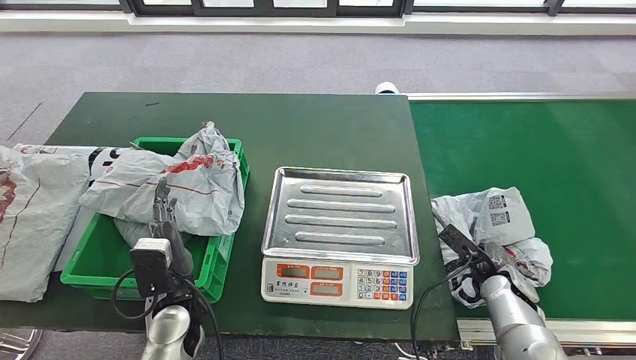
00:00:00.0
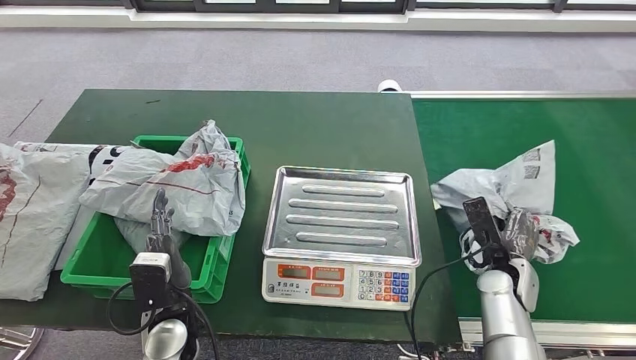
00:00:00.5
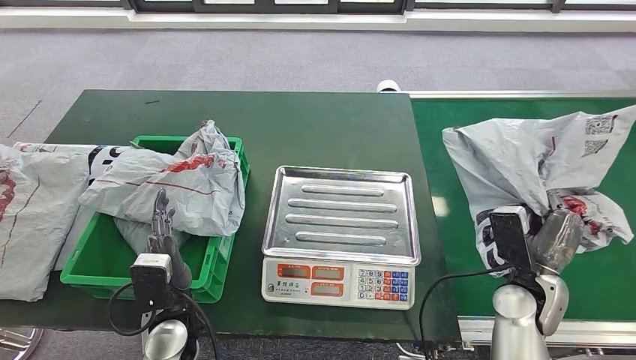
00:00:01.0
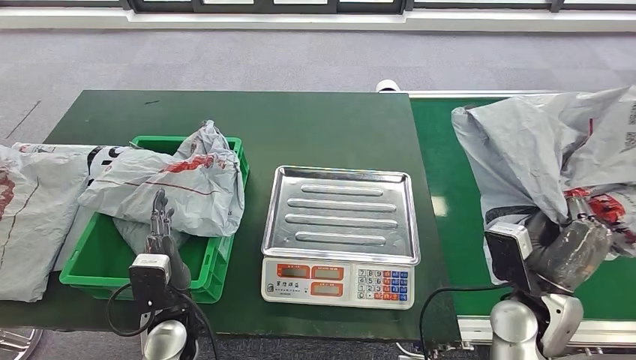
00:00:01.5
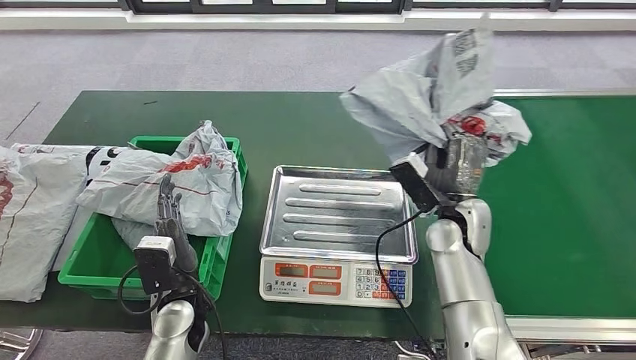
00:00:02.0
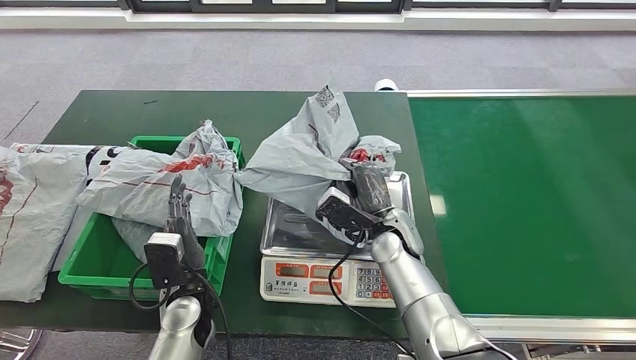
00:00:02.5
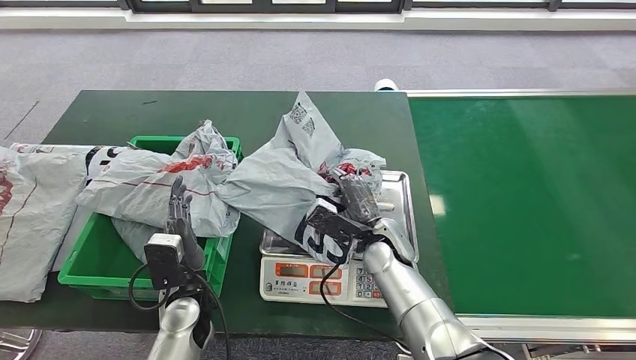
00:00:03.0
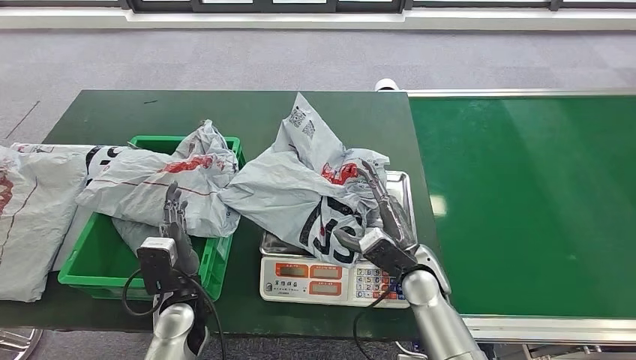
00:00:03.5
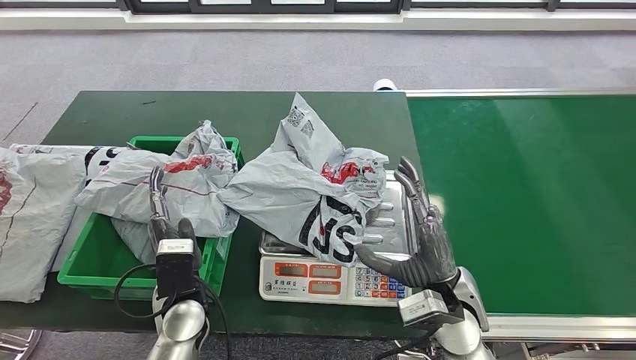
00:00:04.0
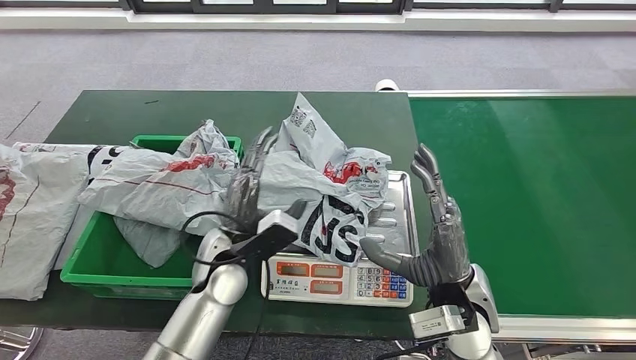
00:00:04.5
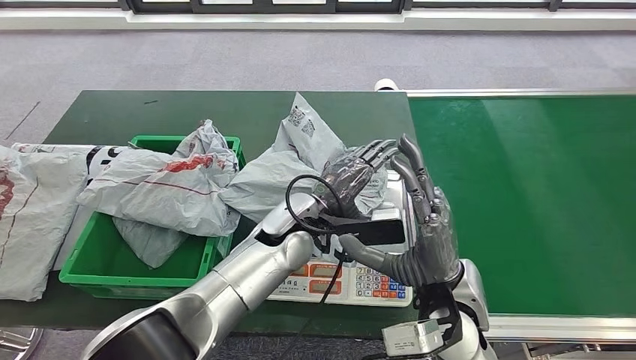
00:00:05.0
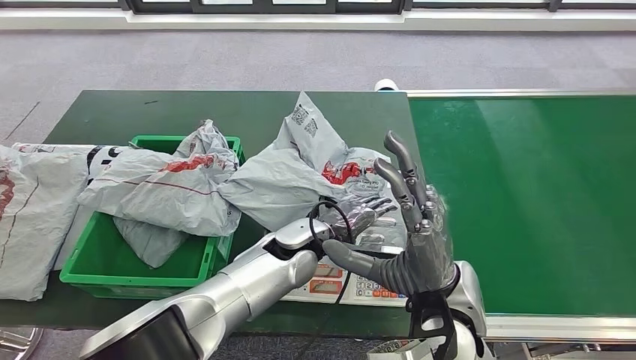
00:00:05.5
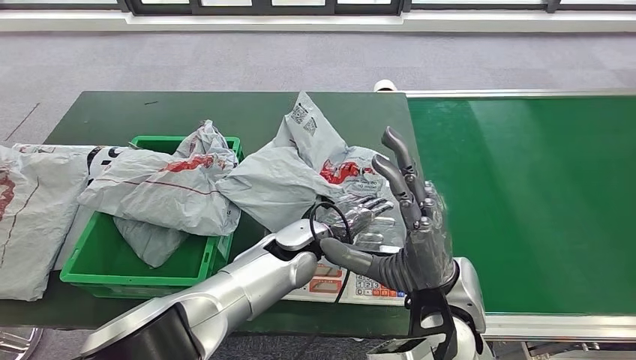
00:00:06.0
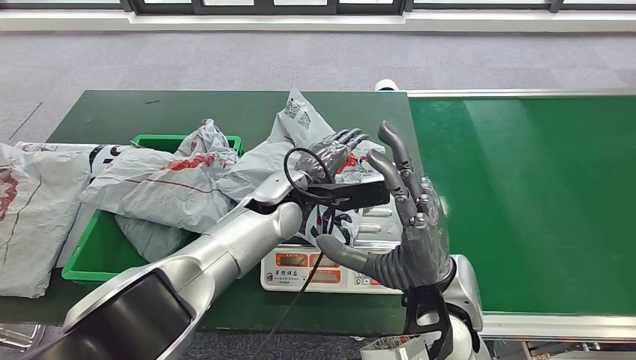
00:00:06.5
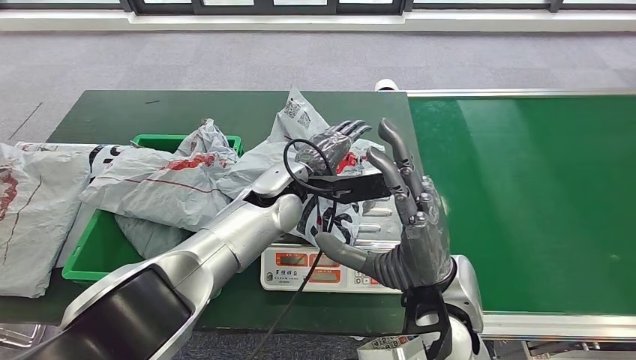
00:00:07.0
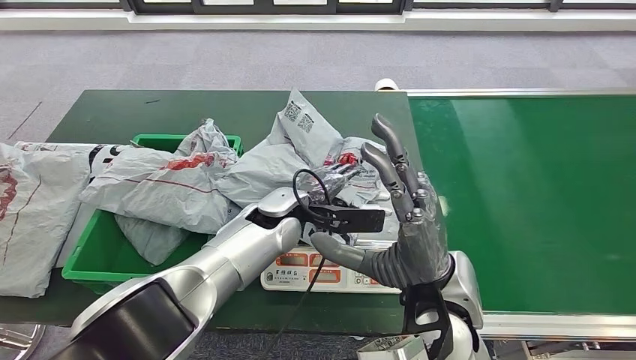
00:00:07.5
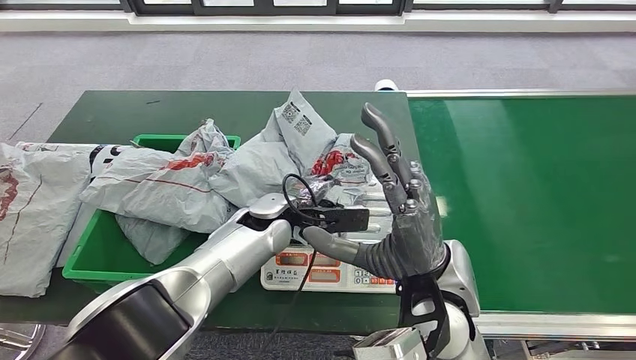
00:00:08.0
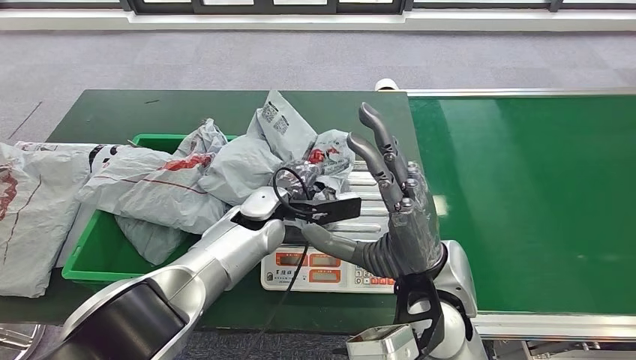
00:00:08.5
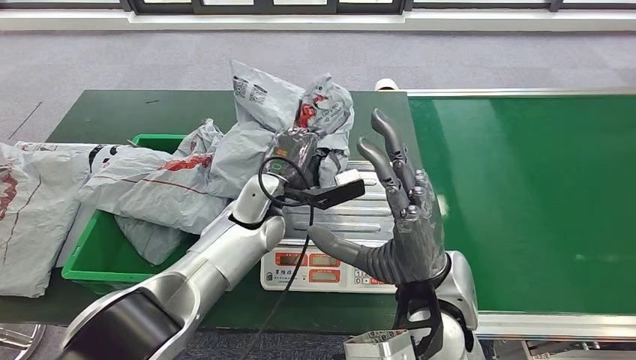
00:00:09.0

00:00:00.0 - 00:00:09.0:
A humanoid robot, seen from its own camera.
Step, 00:00:01.5 - 00:00:04.0: Place the parcel onto the inbound machine.
00:00:07.0 - 00:00:09.0: The left hand ends up roughly 5 cm from where it was.

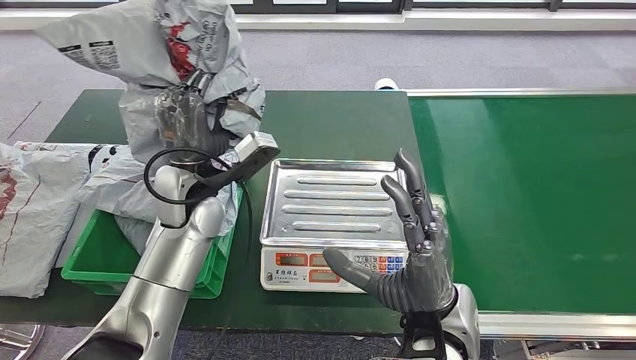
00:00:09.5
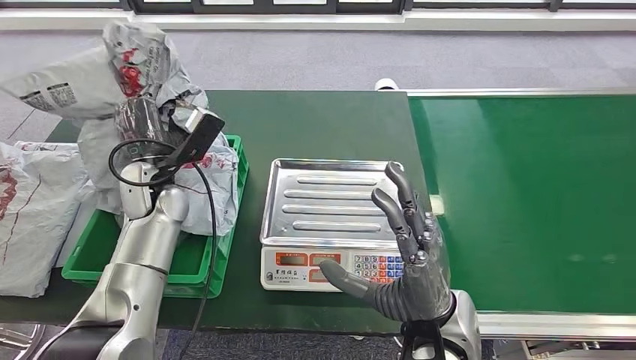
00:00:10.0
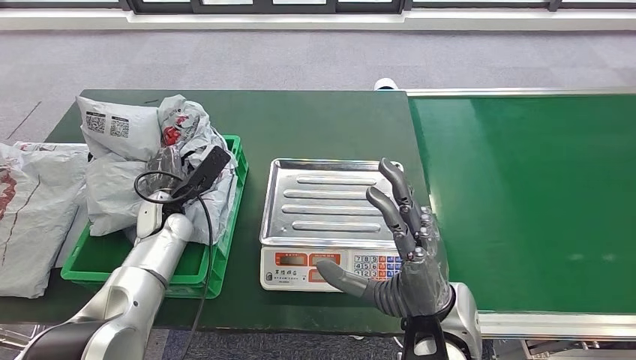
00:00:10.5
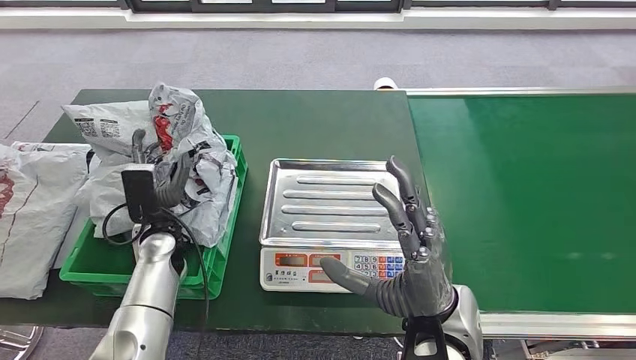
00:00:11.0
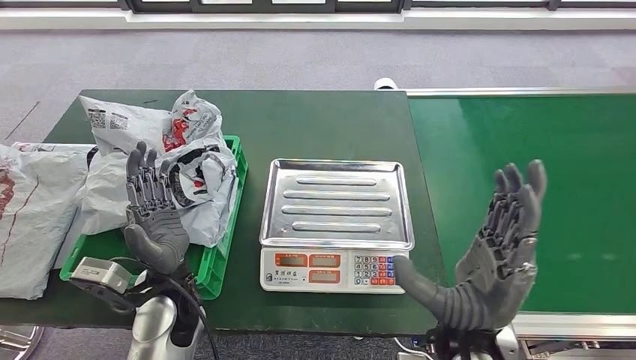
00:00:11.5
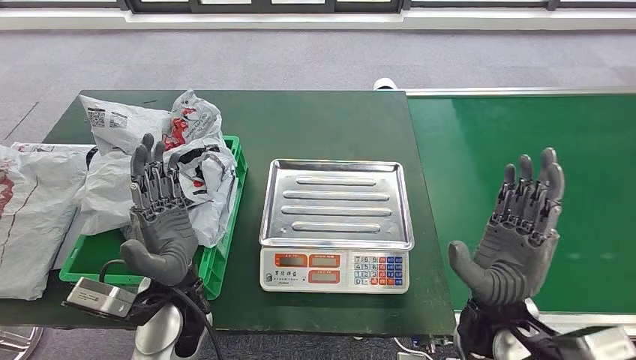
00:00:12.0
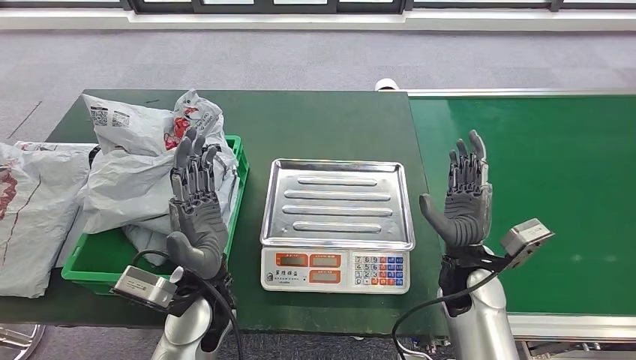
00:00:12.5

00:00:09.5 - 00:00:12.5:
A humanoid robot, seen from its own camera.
Step, 00:00:10.5 - 00:00:12.5: Place the parcel into the delivery box.

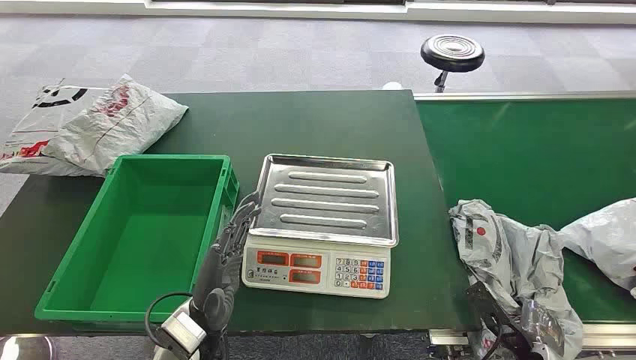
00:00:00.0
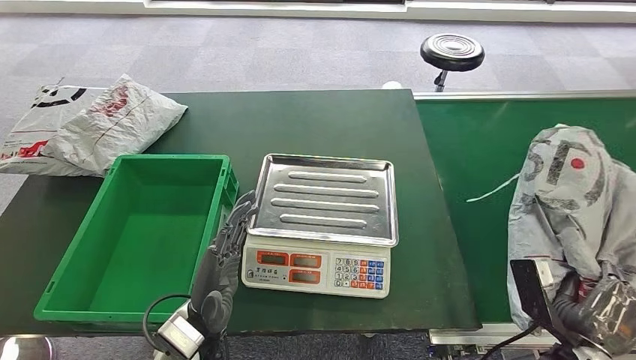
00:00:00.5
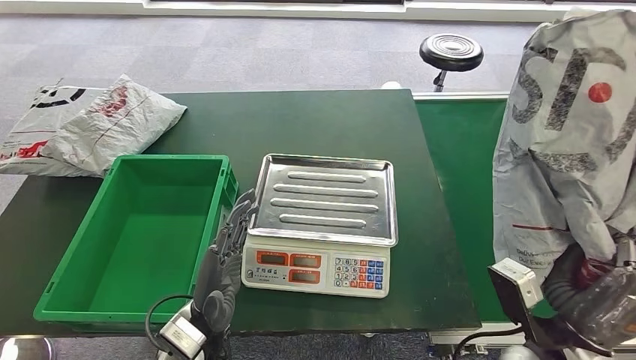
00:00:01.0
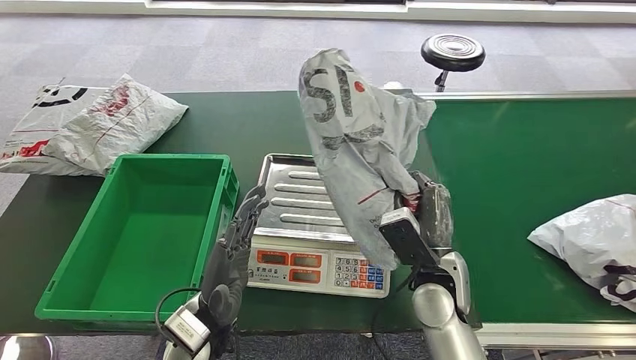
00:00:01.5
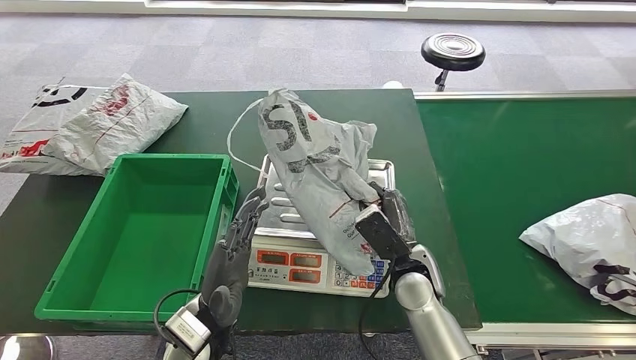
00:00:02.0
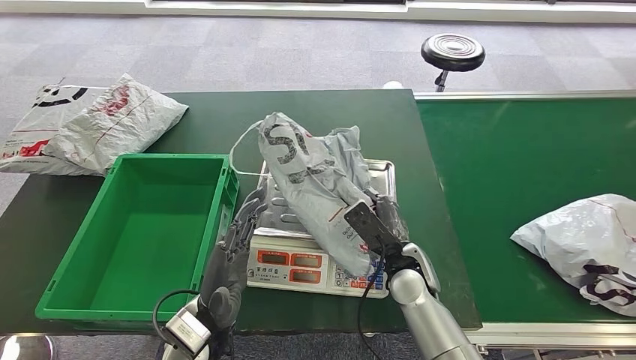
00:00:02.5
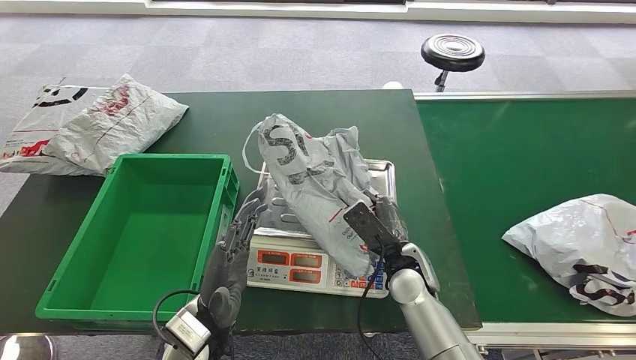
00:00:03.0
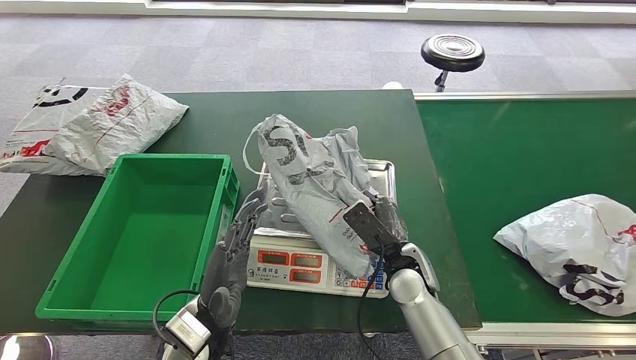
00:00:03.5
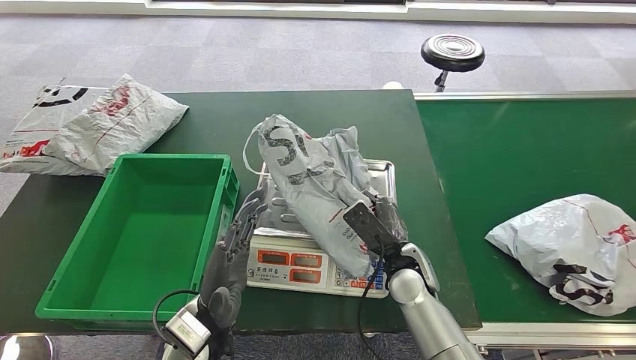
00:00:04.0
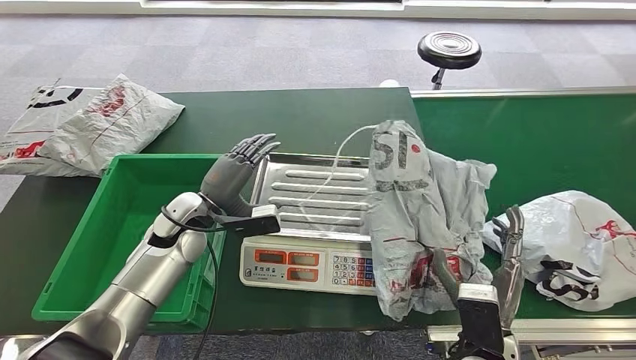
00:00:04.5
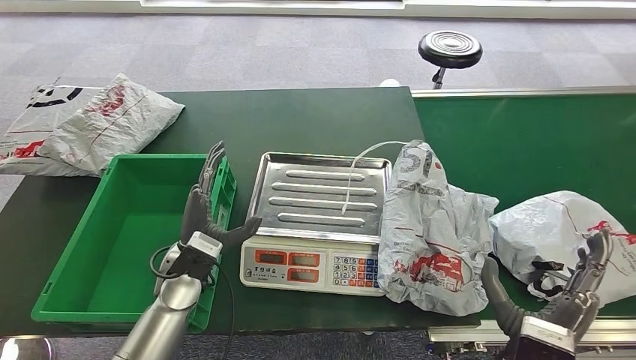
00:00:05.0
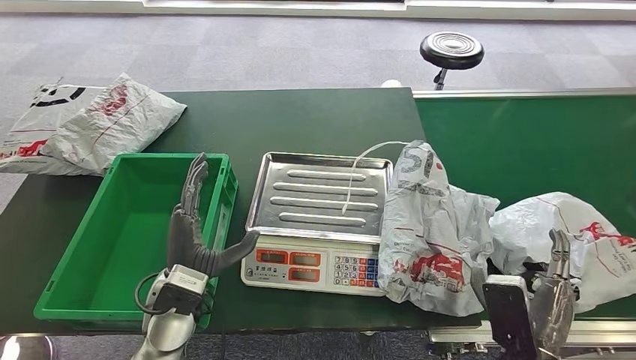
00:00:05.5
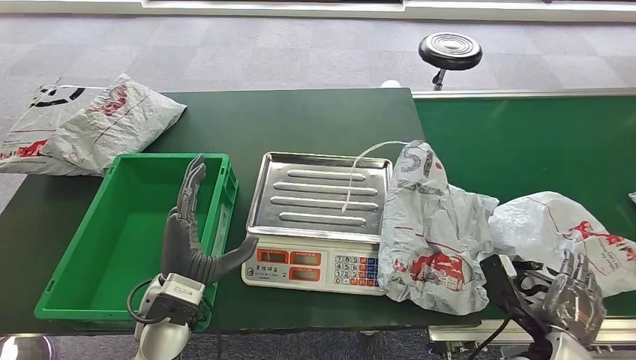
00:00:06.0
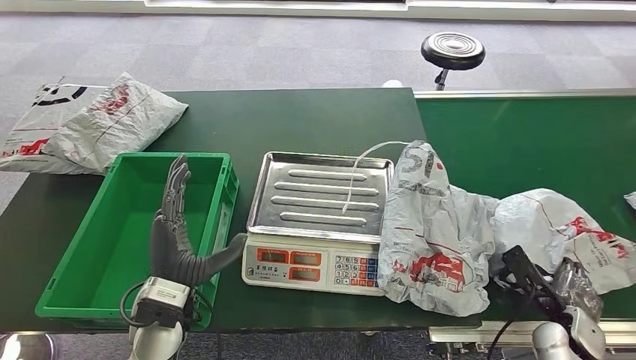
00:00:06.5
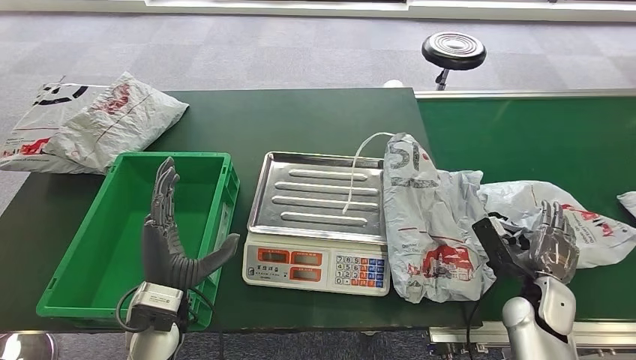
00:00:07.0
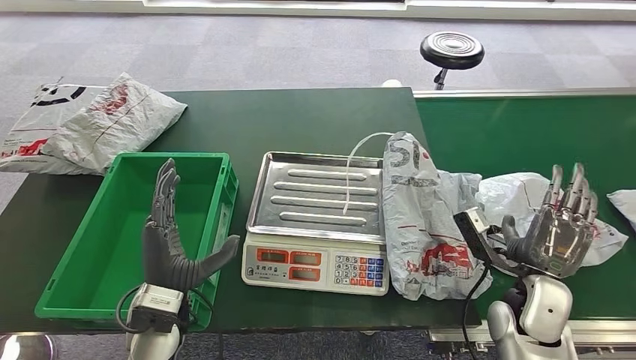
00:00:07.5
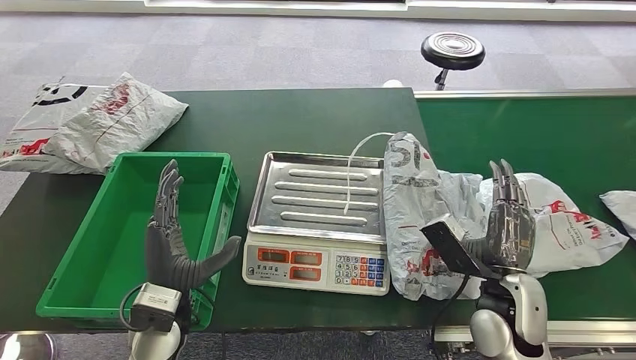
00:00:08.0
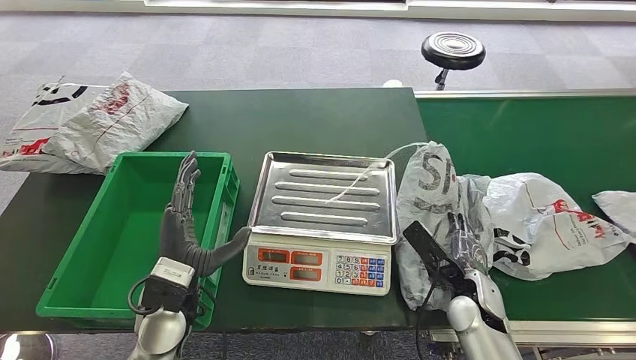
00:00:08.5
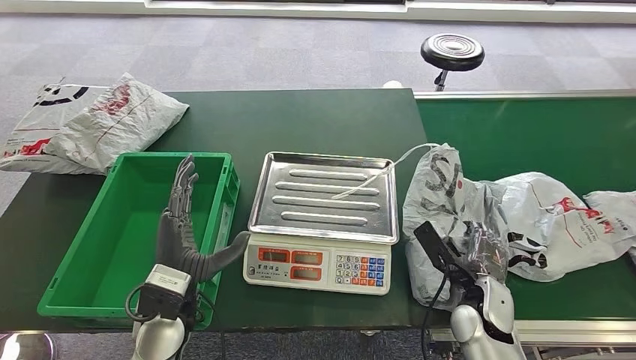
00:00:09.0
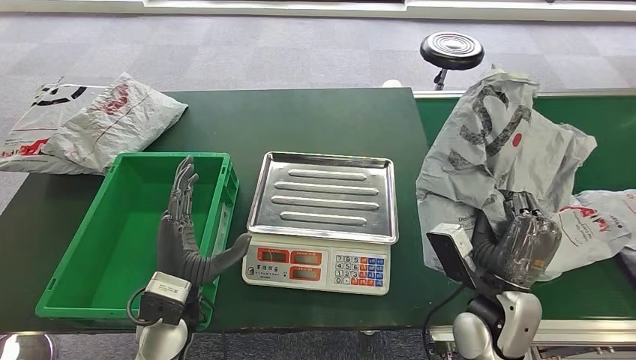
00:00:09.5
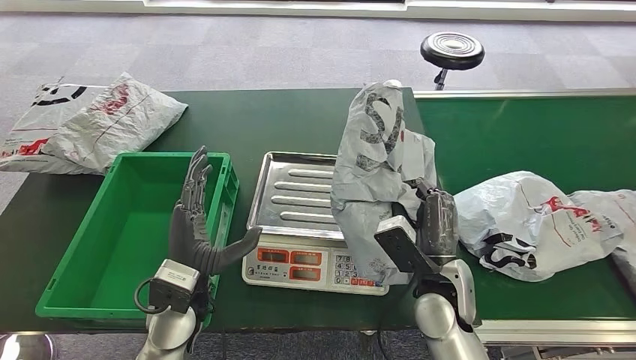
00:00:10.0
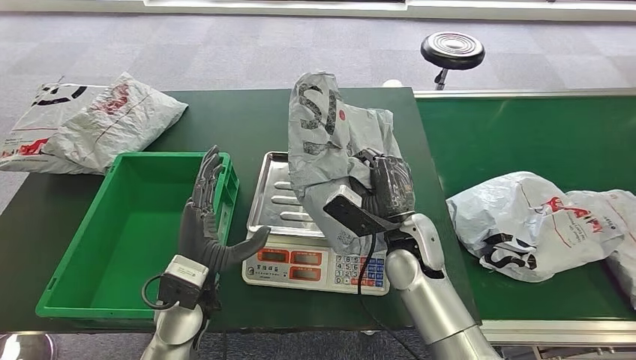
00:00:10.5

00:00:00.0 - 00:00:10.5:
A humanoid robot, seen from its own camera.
Step, 00:00:00.0 - 00:00:01.0: Take the parcel off the conveyor belt.
Step, 00:00:01.5 - 00:00:05.5: Place the parcel onto the inbound machine.
Step, 00:00:08.0 - 00:00:09.5: Take the parcel off the conveyor belt.
00:00:02.0 - 00:00:04.0: There are only small adjustments of the hands.
00:00:06.5 - 00:00:08.5: The right hand shifts approximately 15 cm to the left.
